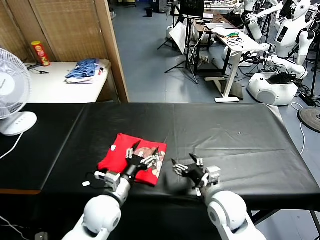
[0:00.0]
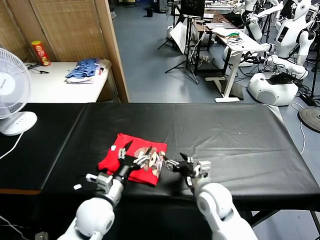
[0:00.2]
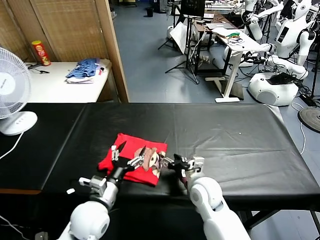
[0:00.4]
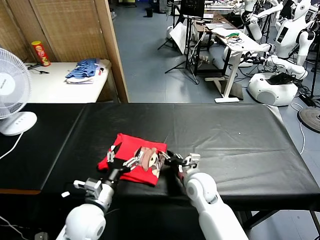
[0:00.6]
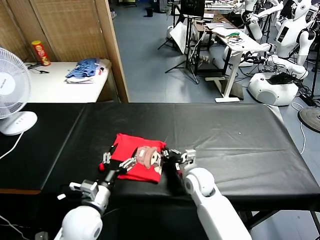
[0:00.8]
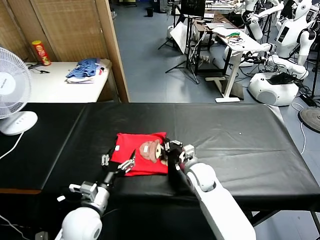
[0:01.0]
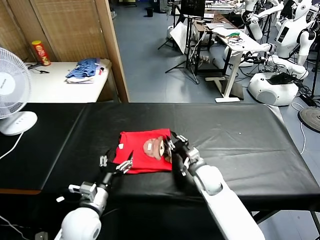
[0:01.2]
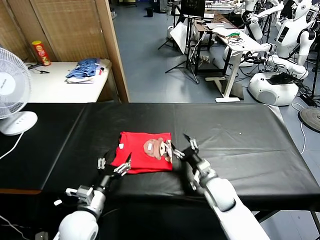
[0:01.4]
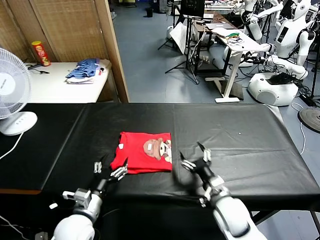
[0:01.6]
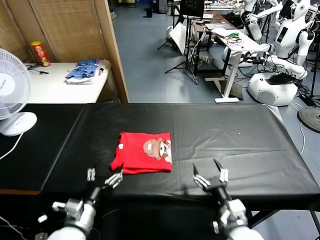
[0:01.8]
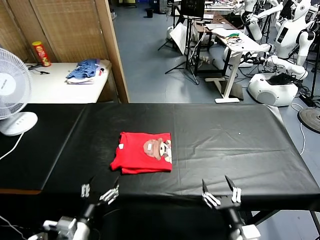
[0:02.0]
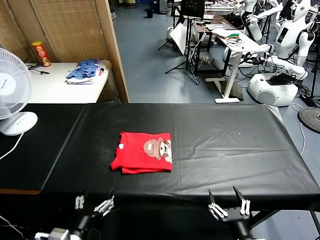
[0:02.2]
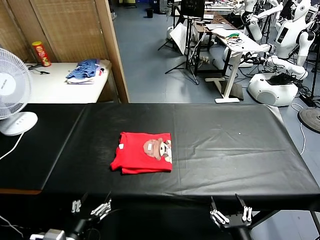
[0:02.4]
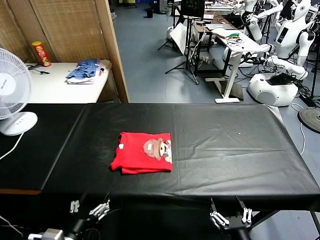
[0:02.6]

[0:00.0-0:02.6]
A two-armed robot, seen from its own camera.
Task of the whole recording: fold and organize the clothes.
Step, 0:00.0 to 0:01.4: Drag the clothes to the center of the table.
0:00.0 to 0:01.2: The left gripper is displaced to the left by some 5 cm; the right gripper moves forward and downward, roughly 15 cm, and closes its fingers.
0:01.2 to 0:02.6: The right gripper moves backward, about 35 cm, and opens up. Meanwhile the left gripper travels backward by roughly 15 cm.
